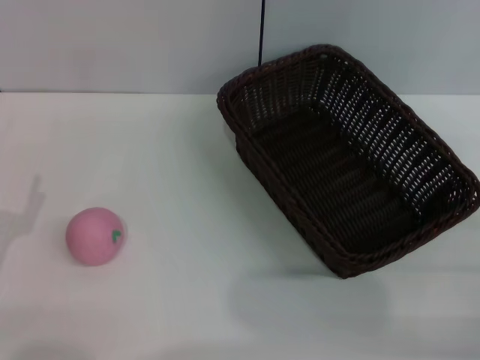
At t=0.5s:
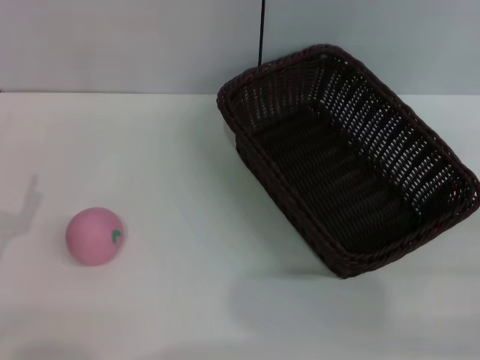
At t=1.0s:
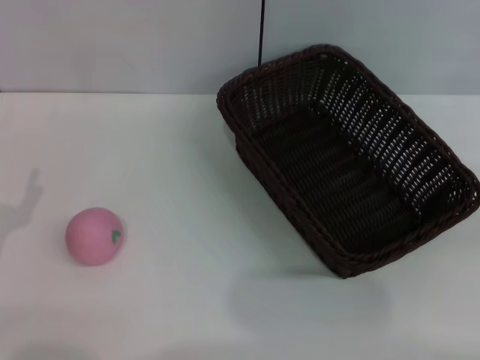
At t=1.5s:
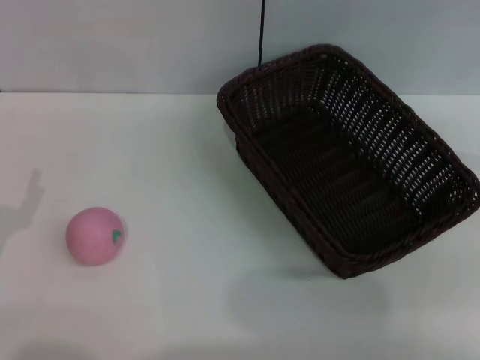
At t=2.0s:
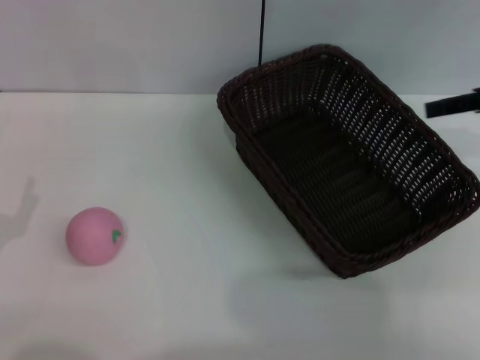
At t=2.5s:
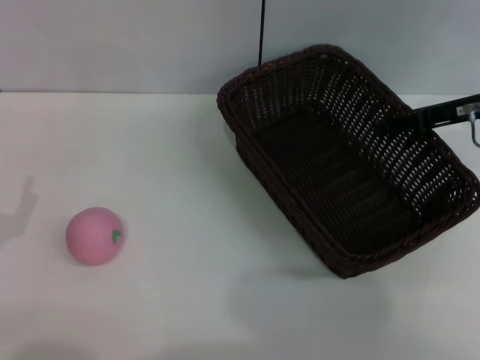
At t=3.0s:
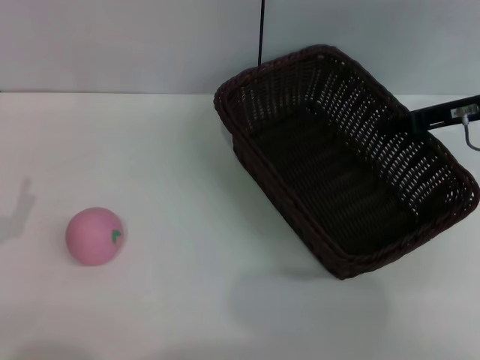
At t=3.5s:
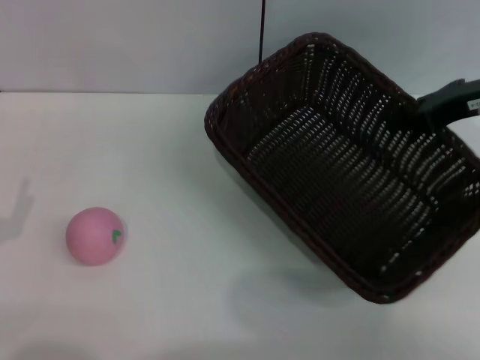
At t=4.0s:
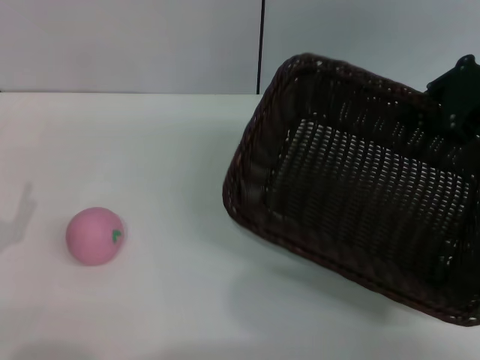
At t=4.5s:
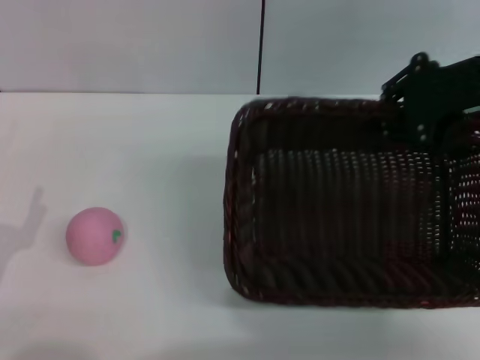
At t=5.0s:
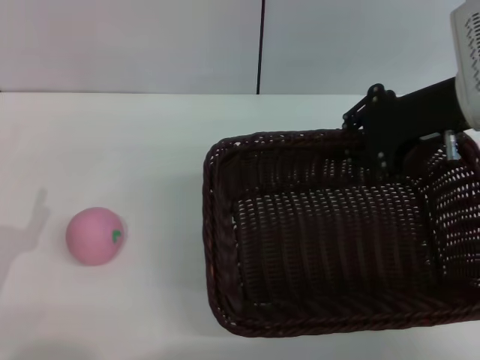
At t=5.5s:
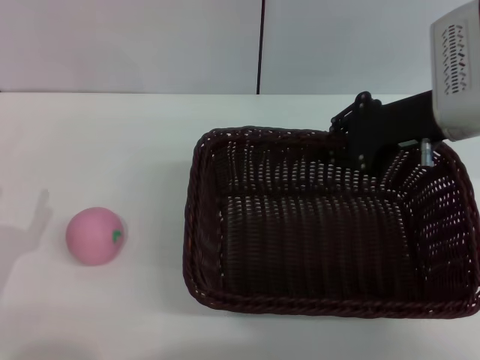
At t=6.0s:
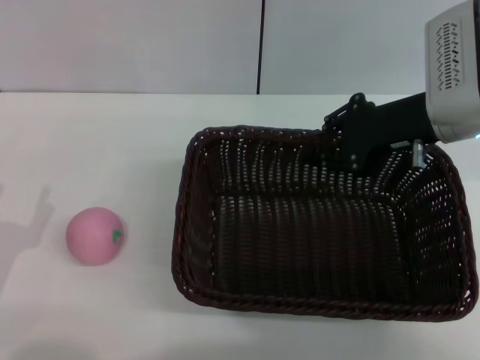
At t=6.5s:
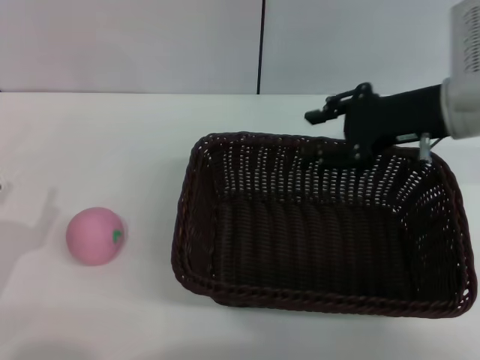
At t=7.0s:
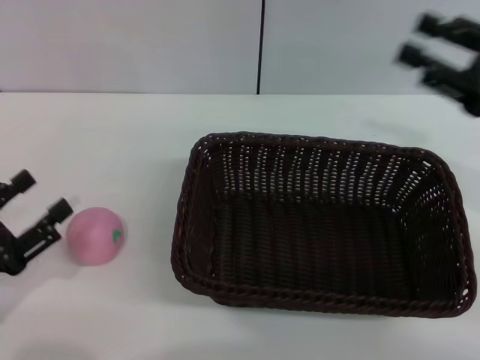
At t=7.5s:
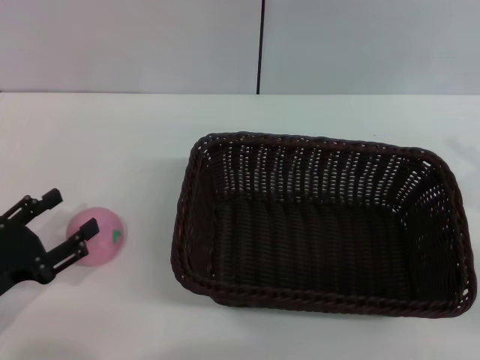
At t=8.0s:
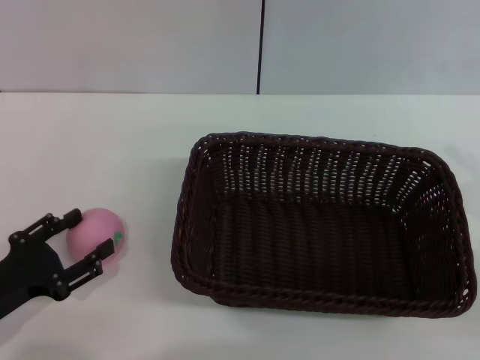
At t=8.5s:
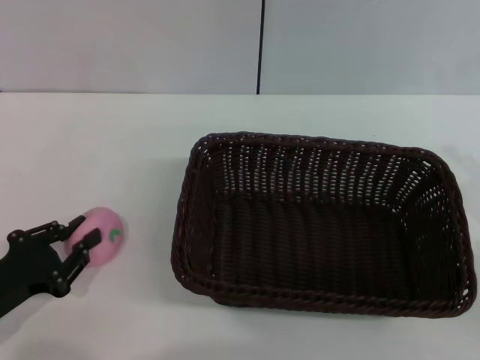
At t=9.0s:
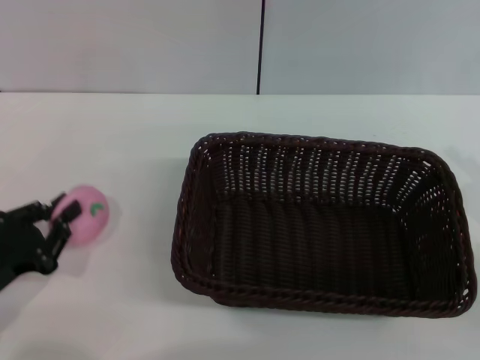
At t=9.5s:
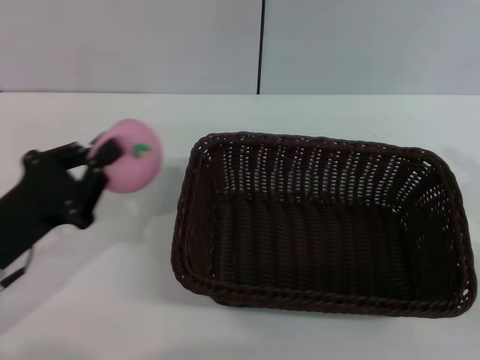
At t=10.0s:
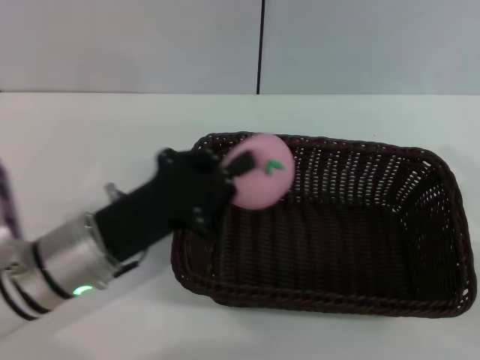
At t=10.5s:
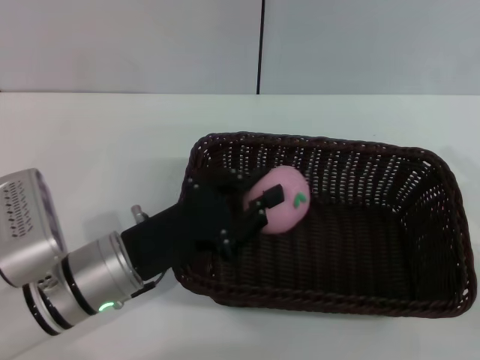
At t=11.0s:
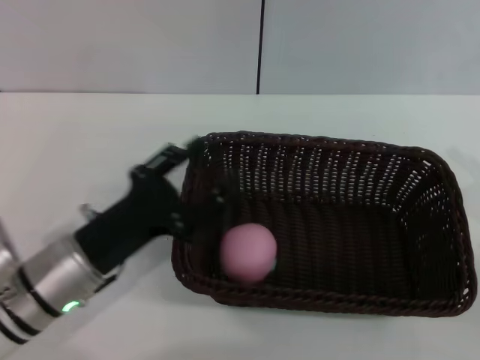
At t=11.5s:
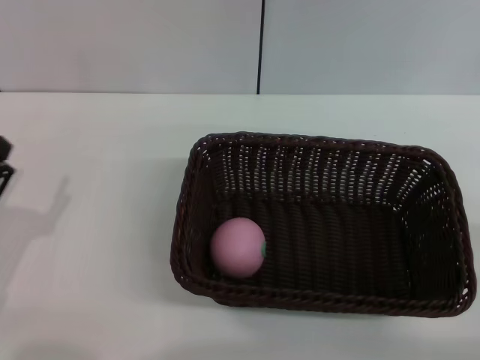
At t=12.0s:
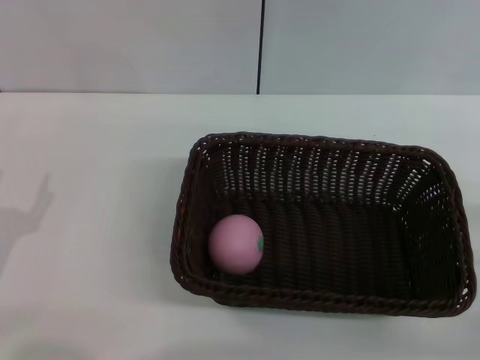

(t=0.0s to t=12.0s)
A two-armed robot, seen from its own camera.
Step, t=0.0s - t=3.5s: Pick up the dark basket with the right gripper.
Step, t=4.0s - t=6.5s: Place the dark basket in the center of view with the right gripper.
Step, t=7.0s - t=9.0s: Pick up the peach with the left gripper.
Step, t=9.5s - t=11.0s: Place the peach into the basket with the left gripper.
t=0.0s - t=2.0s: The right gripper is displaced forward and upward by roughly 25 cm.
t=2.0s - t=4.0s: The right gripper goes some 5 cm to the left, and closes its fingers.
t=4.0s - t=6.0s: The right gripper goes roughly 10 cm to the left and downward.
t=6.0s - t=8.0s: The right gripper heads backward, to the right and downward, covering approximately 20 cm, and opens its fingers.
t=8.0s - t=10.0s: The left gripper shifts approximately 15 cm to the right and forward, and closes up.
t=10.0s - t=12.0s: The left gripper shifts some 15 cm to the left and backward, and opens.
